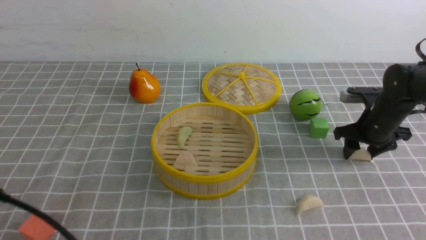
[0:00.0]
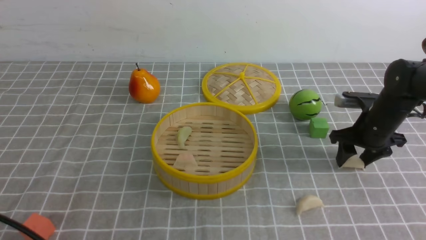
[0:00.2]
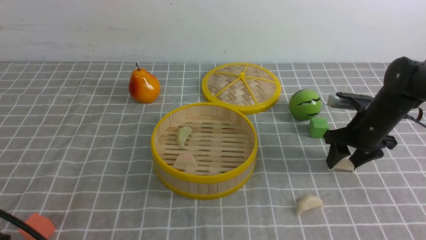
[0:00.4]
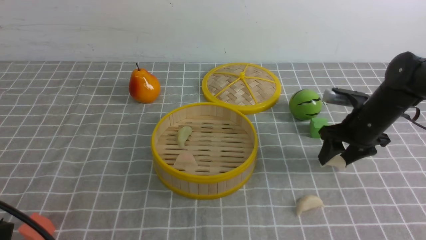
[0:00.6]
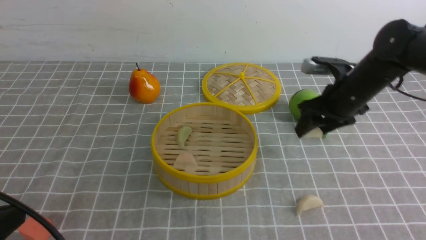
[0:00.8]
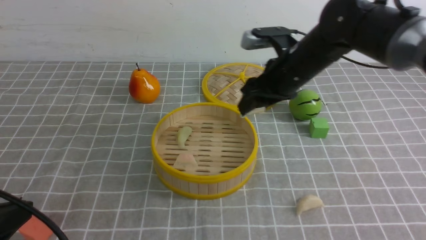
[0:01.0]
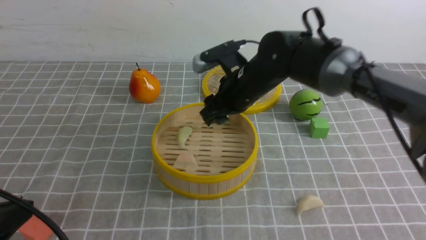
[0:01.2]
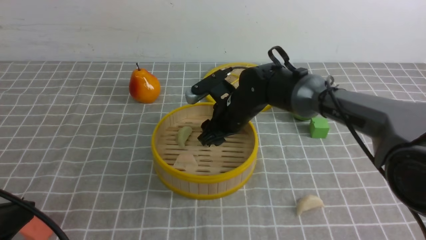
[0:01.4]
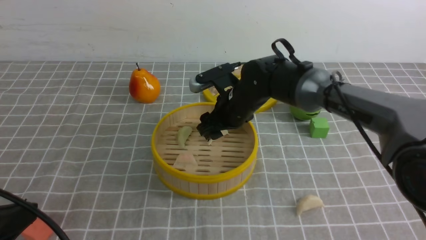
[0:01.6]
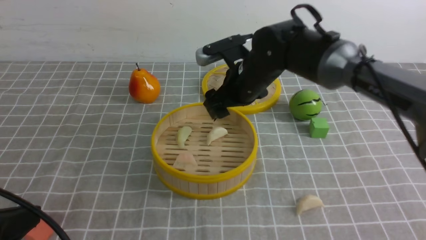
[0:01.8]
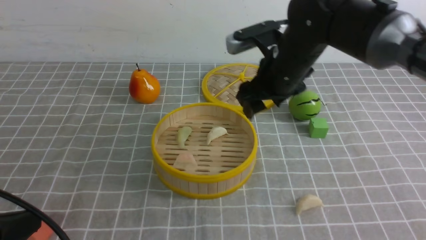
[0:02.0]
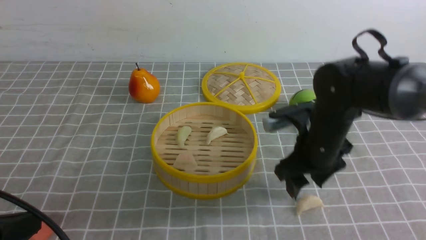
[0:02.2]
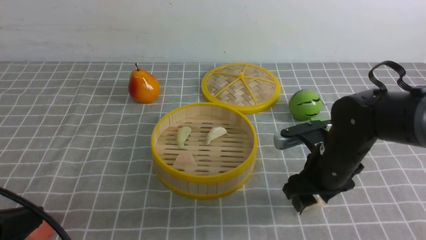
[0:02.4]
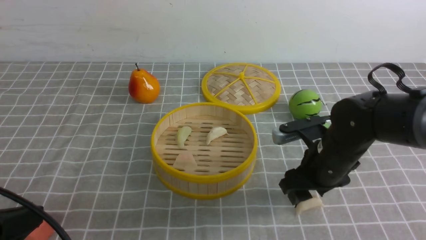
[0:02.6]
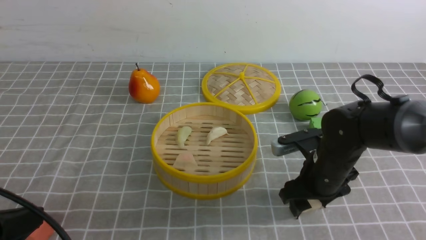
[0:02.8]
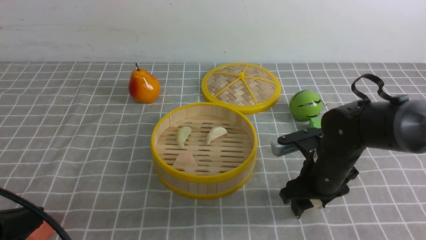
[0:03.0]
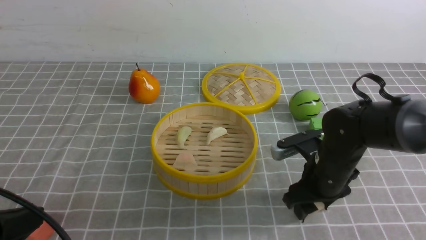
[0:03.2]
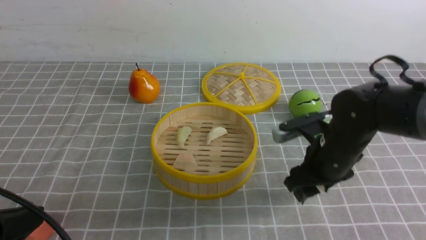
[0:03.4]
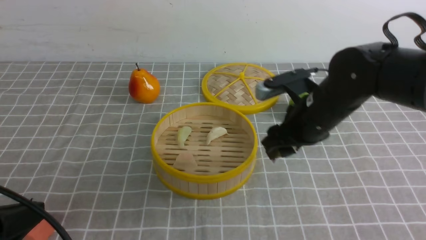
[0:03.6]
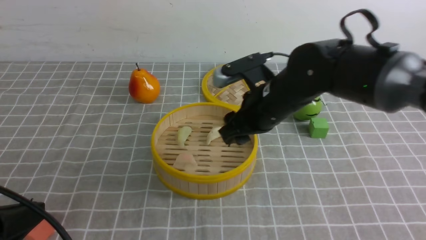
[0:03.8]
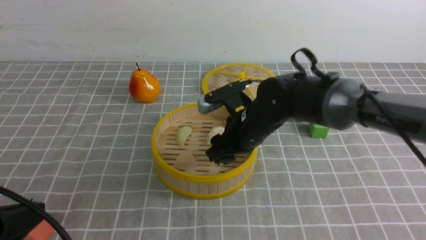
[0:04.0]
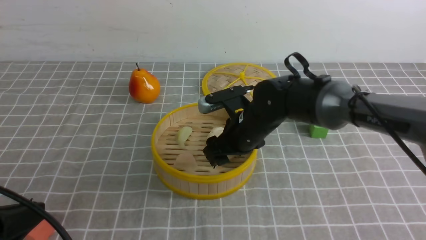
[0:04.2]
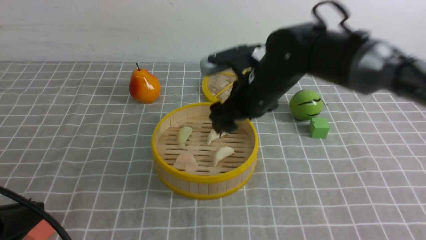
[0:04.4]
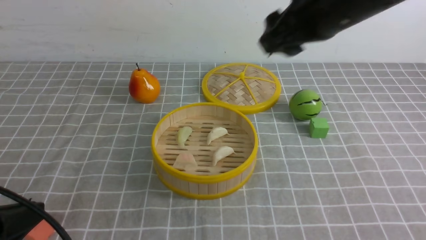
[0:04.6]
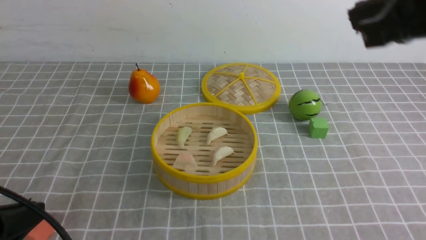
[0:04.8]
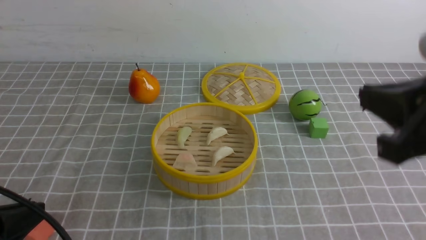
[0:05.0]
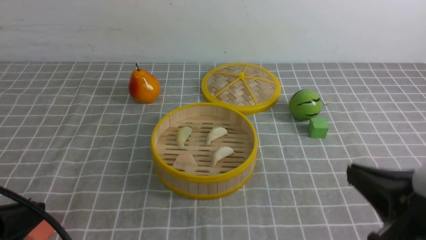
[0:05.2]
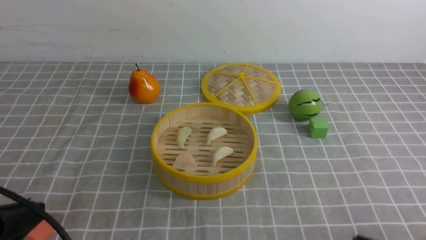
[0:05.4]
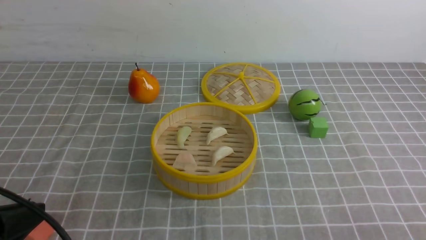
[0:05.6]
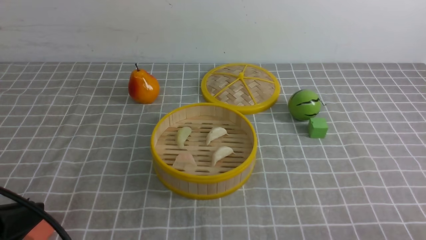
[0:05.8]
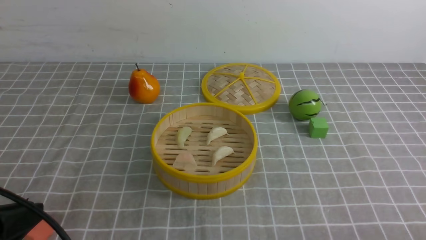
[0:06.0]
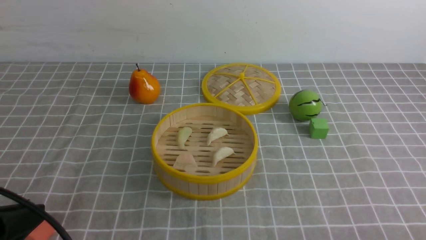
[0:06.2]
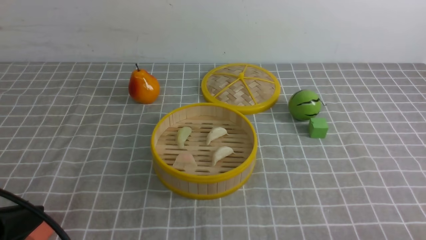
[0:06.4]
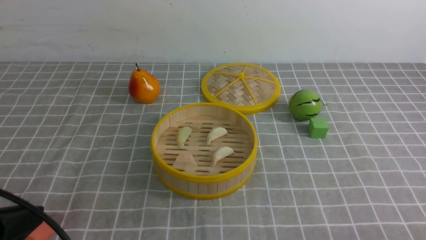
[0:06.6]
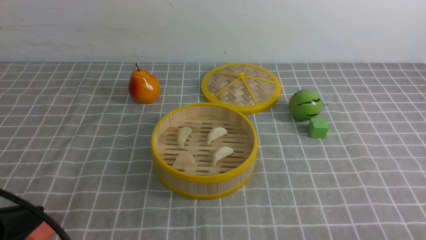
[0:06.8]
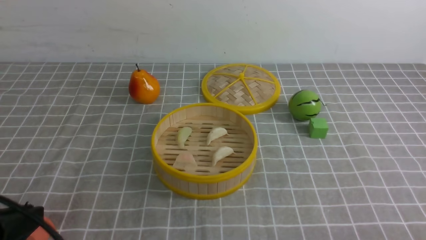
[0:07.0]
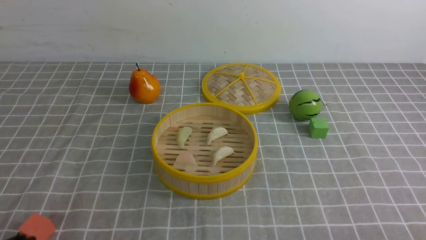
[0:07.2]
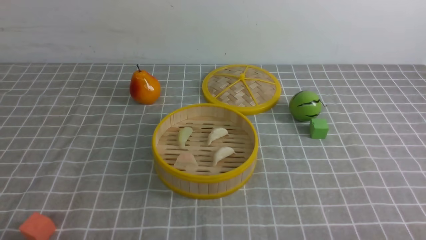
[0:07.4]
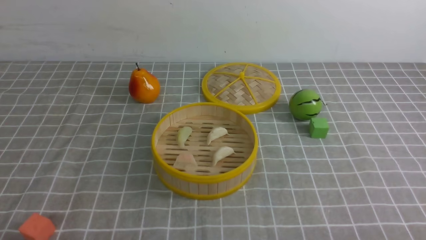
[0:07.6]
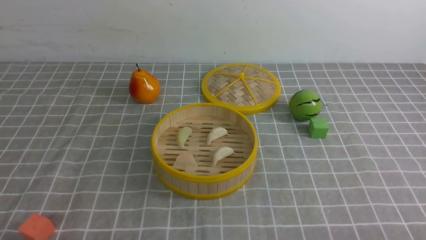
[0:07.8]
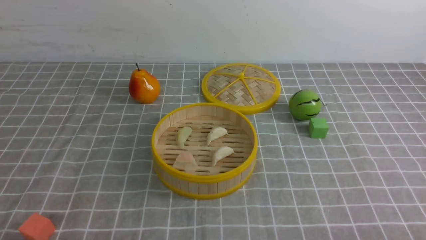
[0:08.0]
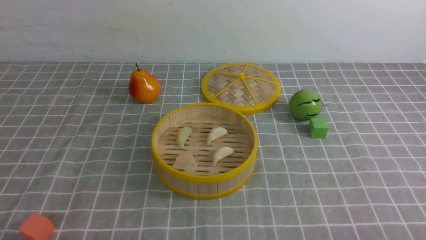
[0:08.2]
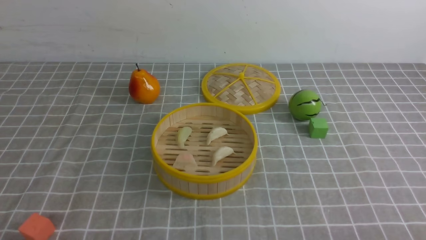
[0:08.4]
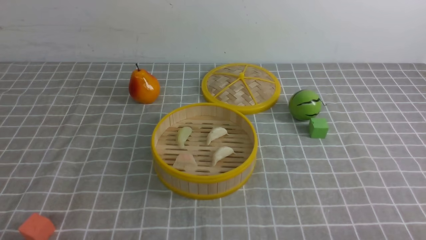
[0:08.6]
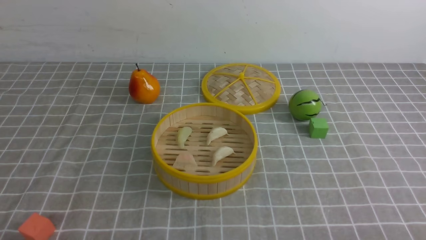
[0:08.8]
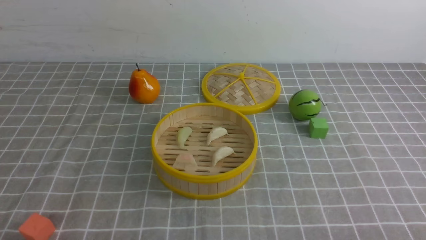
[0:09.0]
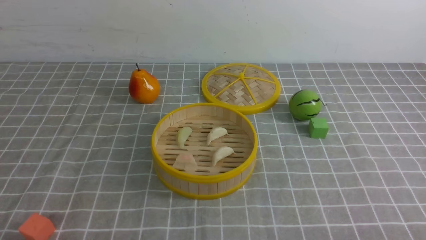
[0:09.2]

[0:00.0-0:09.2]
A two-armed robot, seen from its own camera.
Task of the whole recording: put the dumplings into the steamer on the table with the grey tablecloth.
Step, 0:00.8 to 0:01.8: use the right arm to put the dumpling into the steamer.
Step, 0:02.0 to 0:03.2: use the right arm to grab a dumpling.
Step, 0:03.4 to 0:04.2: use the right arm to put the dumpling into the steamer.
0:00.0 to 0:01.6: The right gripper moves to the left, about 25 cm.
0:01.6 to 0:03.0: The right gripper shifts roughly 20 cm to the right, backward and downward.
0:03.0 to 0:04.6: The right gripper moves upward, approximately 25 cm.
0:04.6 to 0:06.2: The right gripper moves downward, backward and to the right, about 40 cm, and closes.
0:06.2 to 0:07.6: The left gripper shifts roughly 10 cm downward.
0:07.6 to 0:09.2: Neither gripper changes place.
